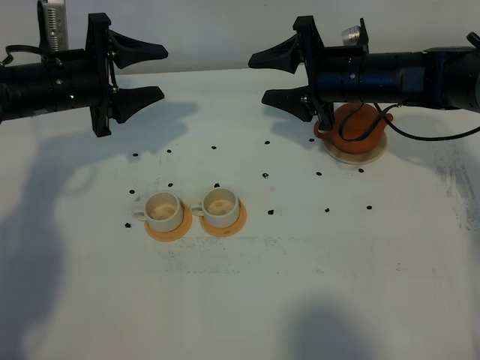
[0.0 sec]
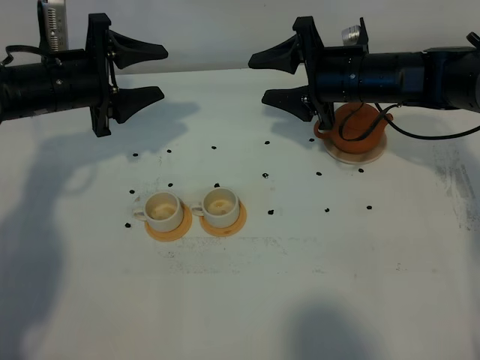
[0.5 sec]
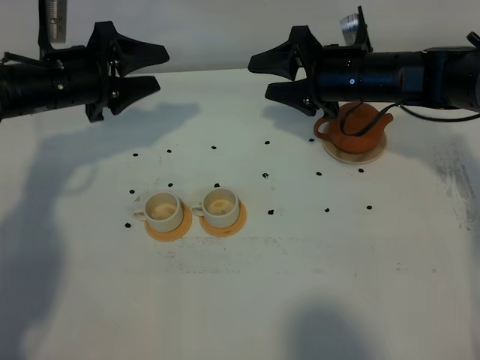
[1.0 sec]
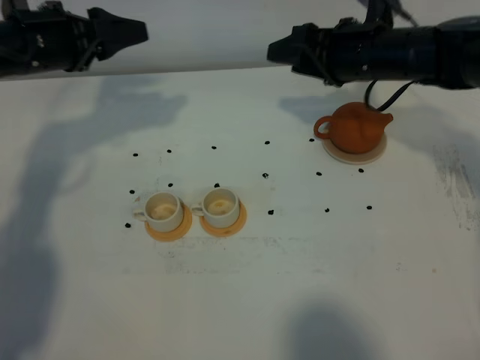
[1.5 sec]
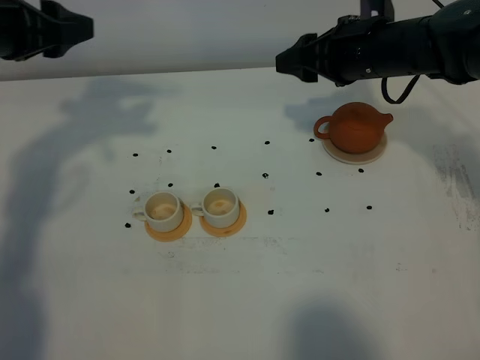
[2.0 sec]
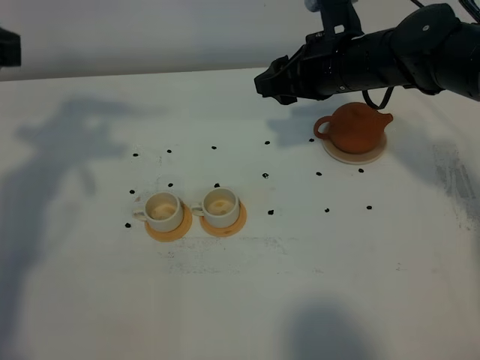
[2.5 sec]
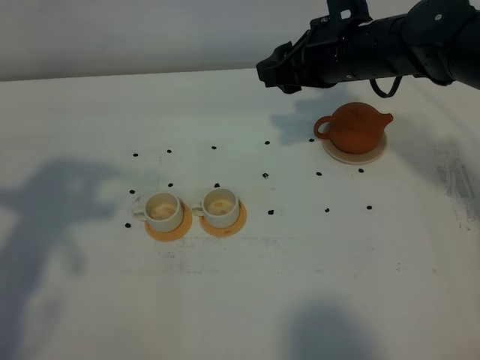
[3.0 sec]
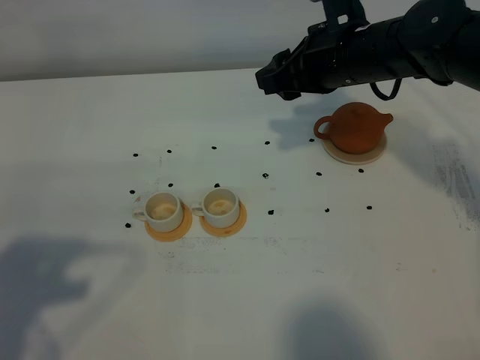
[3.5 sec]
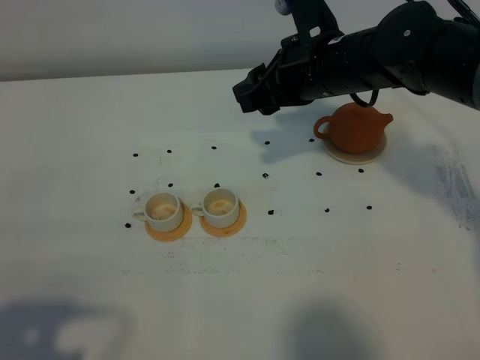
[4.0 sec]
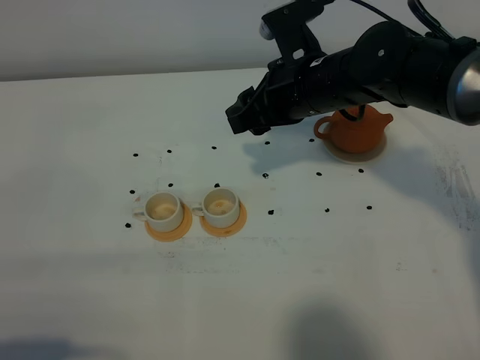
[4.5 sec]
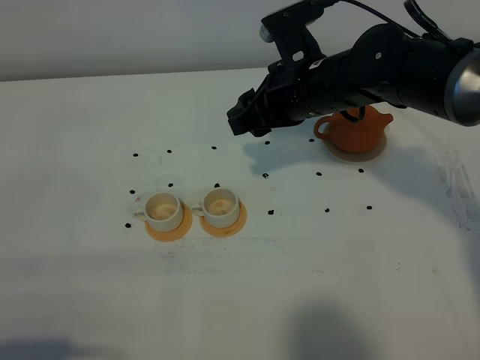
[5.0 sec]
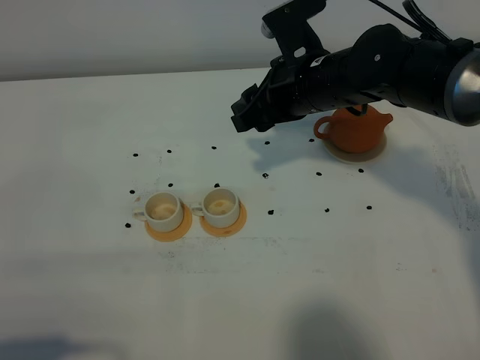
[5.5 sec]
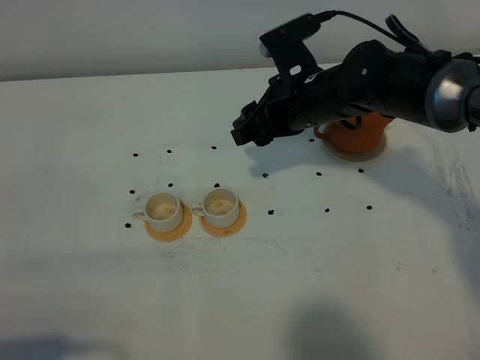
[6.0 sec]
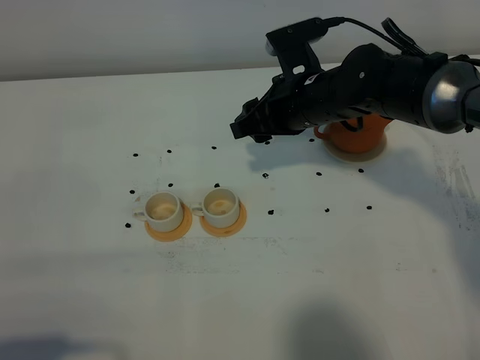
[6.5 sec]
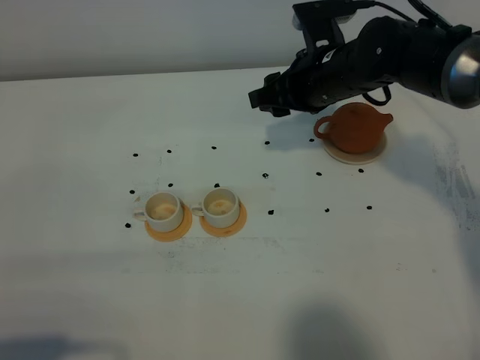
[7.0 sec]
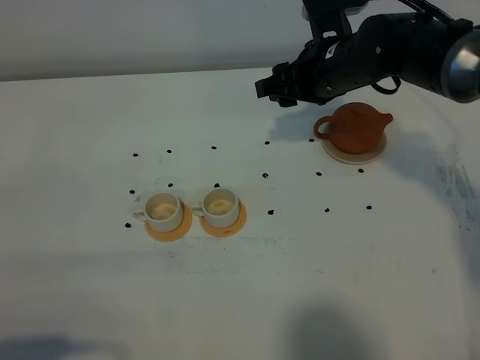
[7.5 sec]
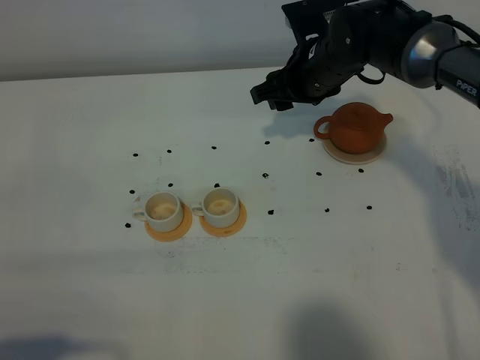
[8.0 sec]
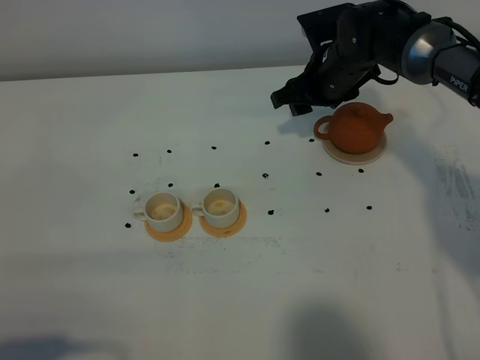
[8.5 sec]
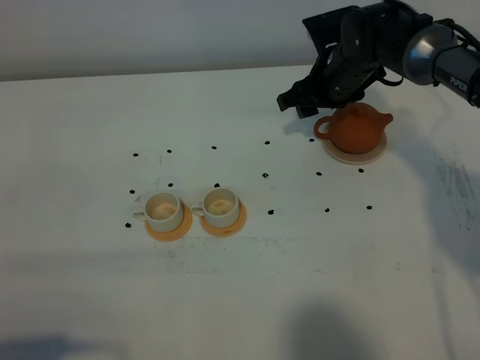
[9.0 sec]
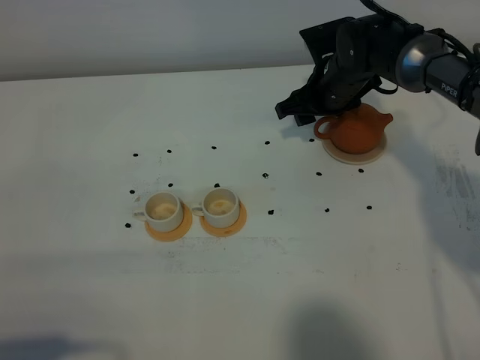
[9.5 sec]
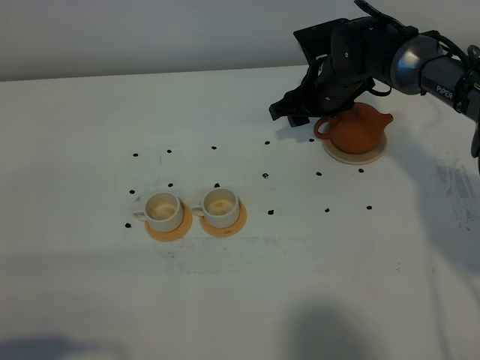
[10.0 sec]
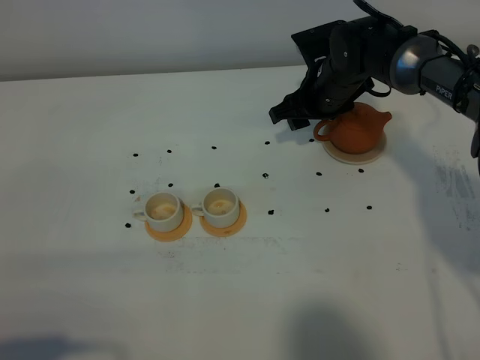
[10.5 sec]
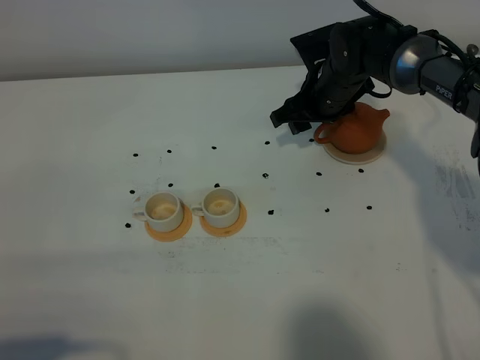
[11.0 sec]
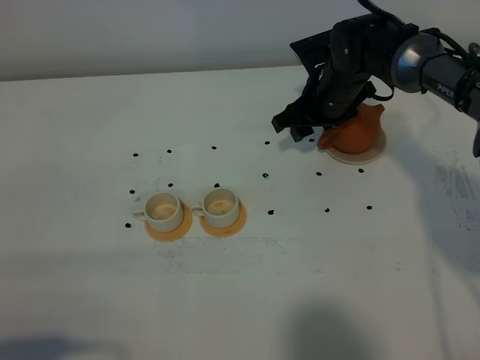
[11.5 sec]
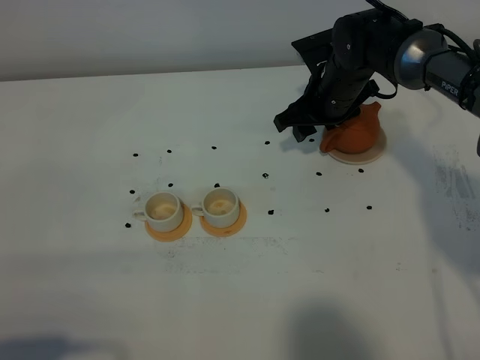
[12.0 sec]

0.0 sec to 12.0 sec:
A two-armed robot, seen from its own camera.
Task of the whole recording: grasp the brown teapot and pour the tea into the two white teacups one by one, put the brown teapot back in its original place.
0.0 sec to 2.0 sec: The left gripper goes about 15 cm upward.
2.0 sec to 4.0 sec: The left gripper moves backward, roughly 35 cm. The right gripper goes approximately 5 cm to the left.
4.0 sec to 6.0 sec: The right gripper moves downward, some 5 cm.
6.0 sec to 8.0 sec: The right gripper shifts approximately 5 cm forward.
8.0 sec to 10.0 sec: The right gripper changes place by roughly 5 cm.
10.0 sec to 12.0 sec: There are only small adjustments of the grippers.

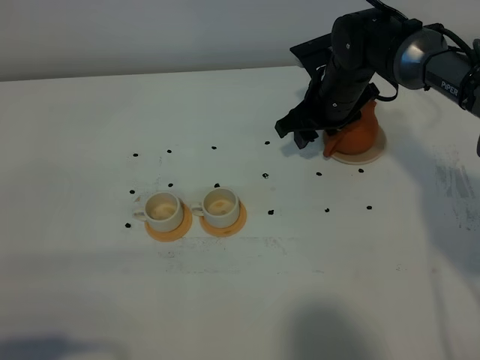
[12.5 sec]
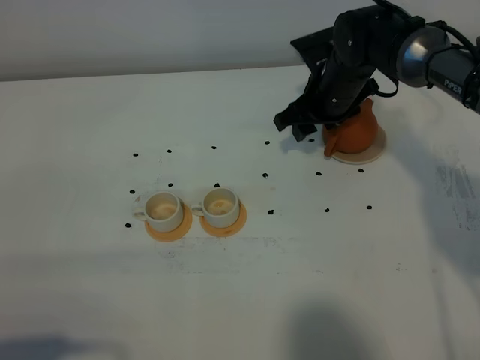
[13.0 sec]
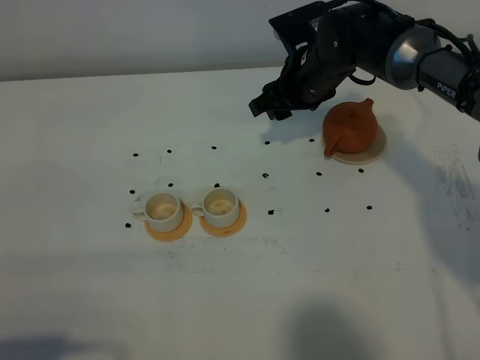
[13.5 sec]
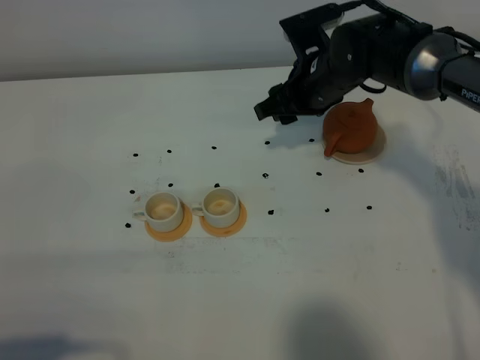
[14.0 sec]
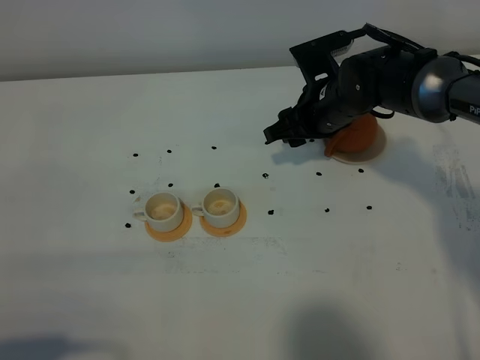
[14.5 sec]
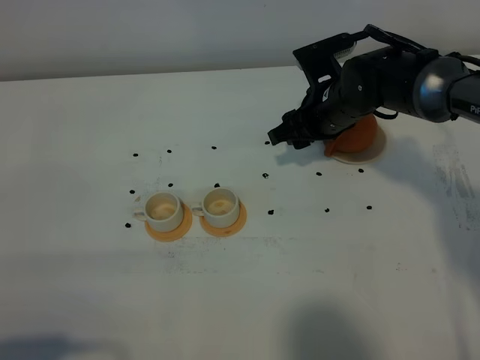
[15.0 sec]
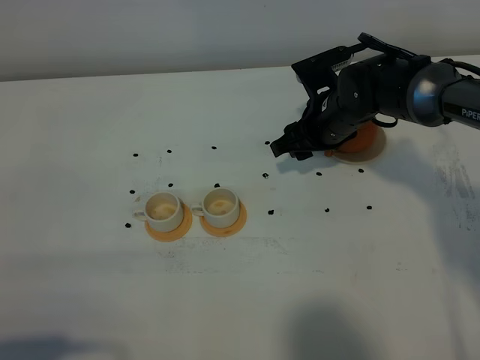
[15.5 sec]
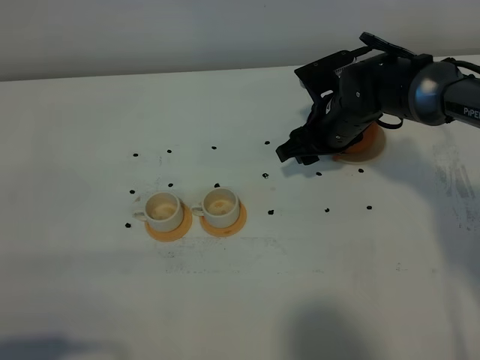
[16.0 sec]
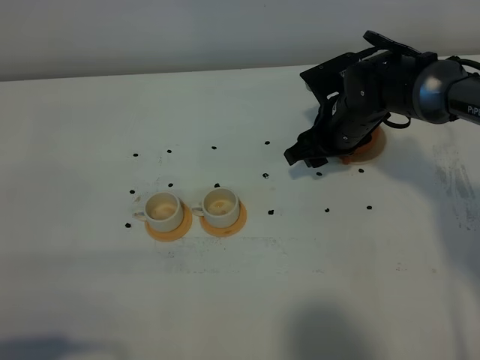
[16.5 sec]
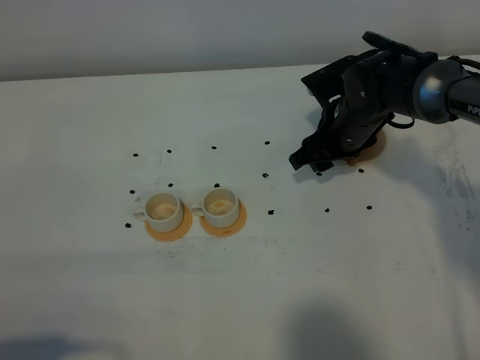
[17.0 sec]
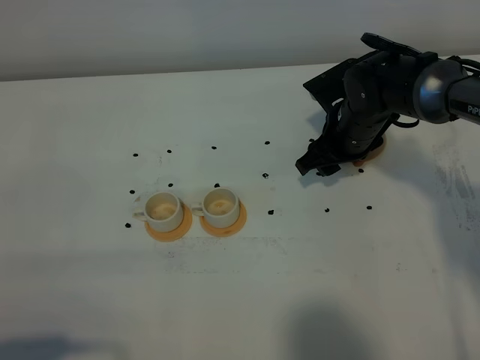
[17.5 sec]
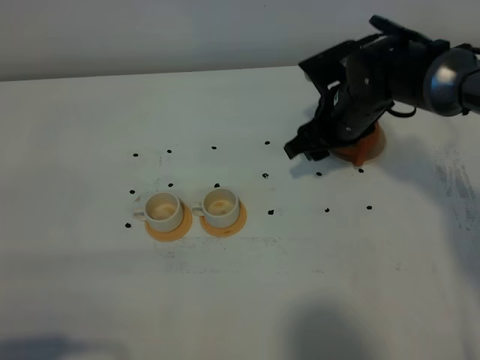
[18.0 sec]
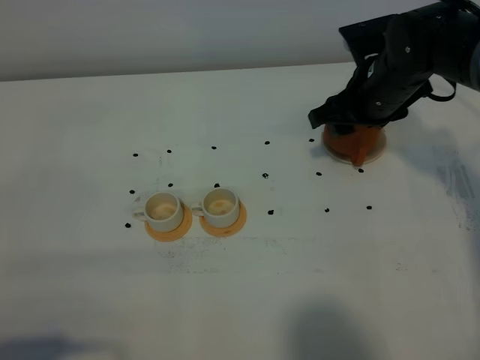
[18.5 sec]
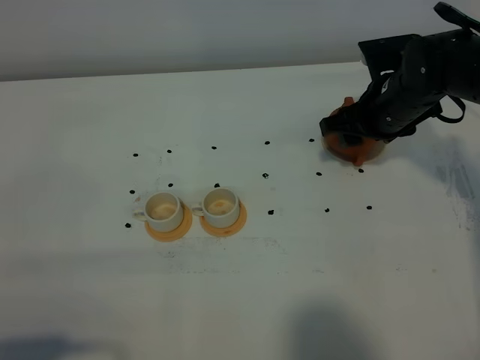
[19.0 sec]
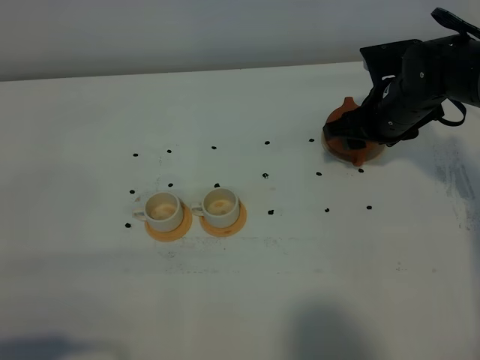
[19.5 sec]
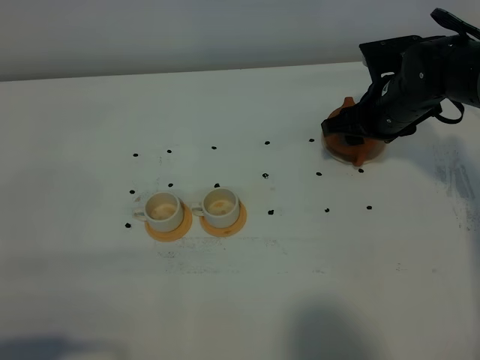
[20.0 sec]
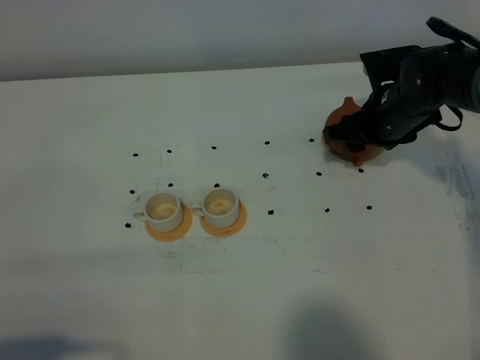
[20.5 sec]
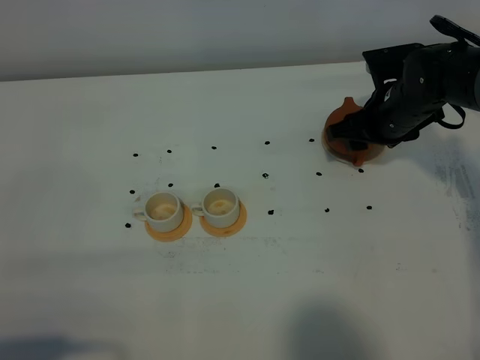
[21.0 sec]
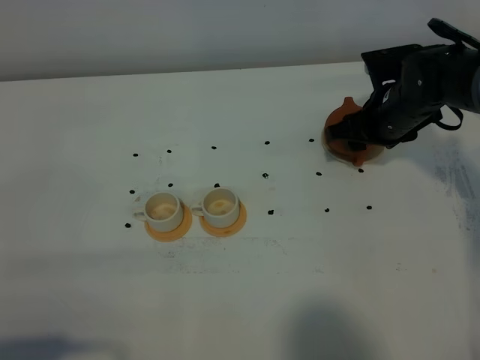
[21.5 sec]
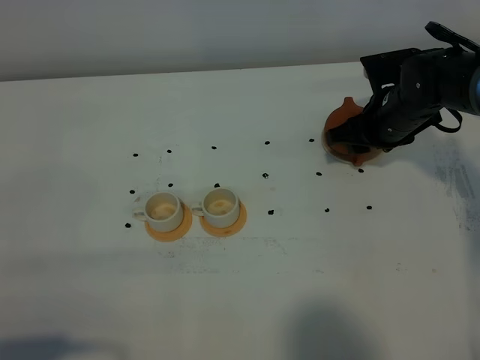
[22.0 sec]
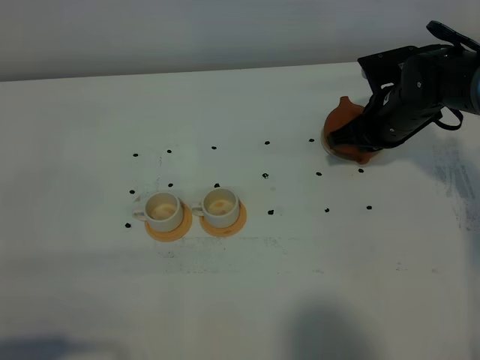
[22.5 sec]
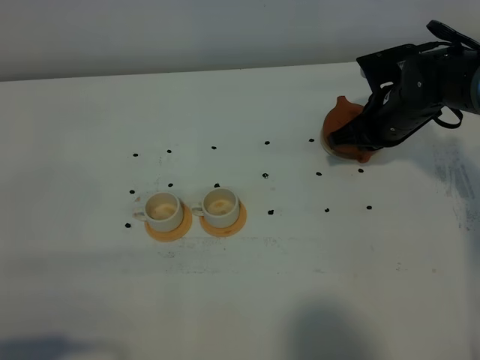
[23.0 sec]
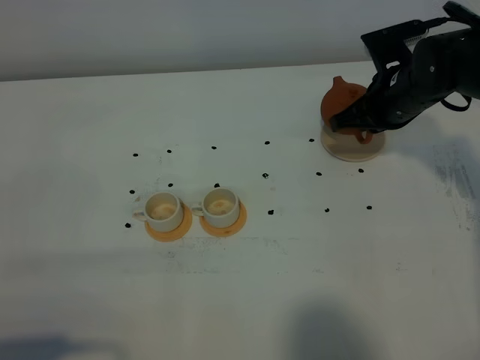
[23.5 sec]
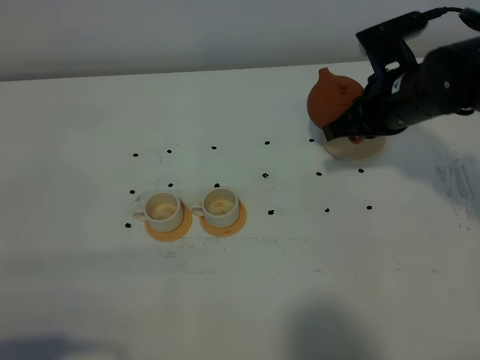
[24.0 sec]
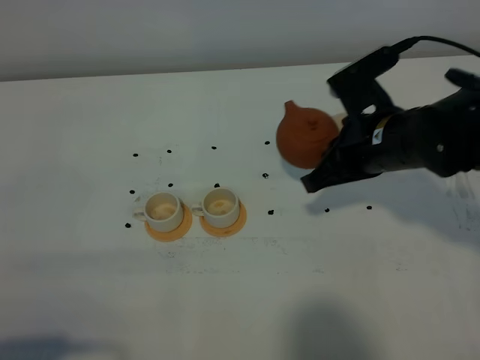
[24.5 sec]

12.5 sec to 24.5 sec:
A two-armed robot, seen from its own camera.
Task of the whole recording: grasp the brown teapot and pour the tea into the two white teacups one by one, put the brown teapot back in its original place.
Step, 12.5 sec to 23.5 sec: Pick up the teapot with the right gripper.
12.5 sec to 16.5 sec: There are only small adjustments of the grippers.
16.5 sec to 18.5 sec: The right gripper goes approximately 5 cm upward.
18.5 sec to 20.5 sec: The right gripper moves approximately 5 cm.
20.5 sec to 22.5 sec: The right gripper closes.
22.5 sec to 24.5 sec: The right gripper moves backward, upward and to the left, about 15 cm.

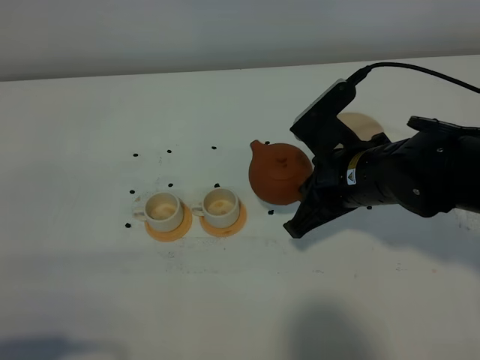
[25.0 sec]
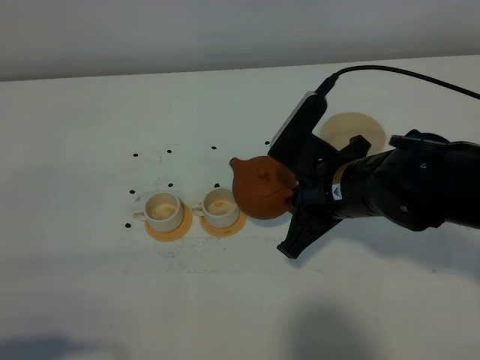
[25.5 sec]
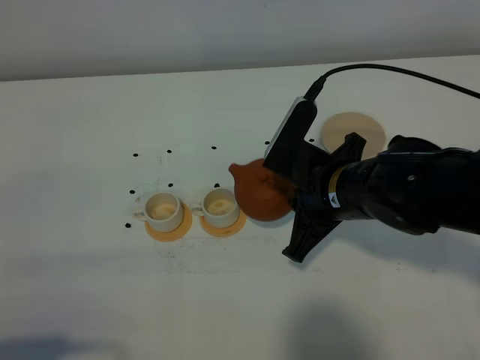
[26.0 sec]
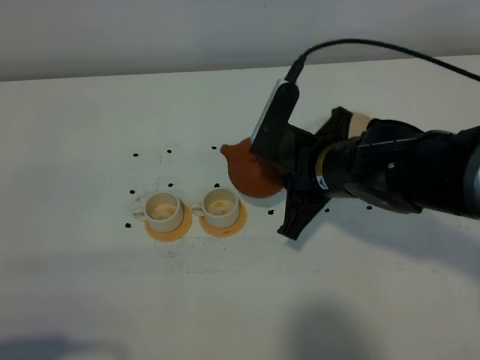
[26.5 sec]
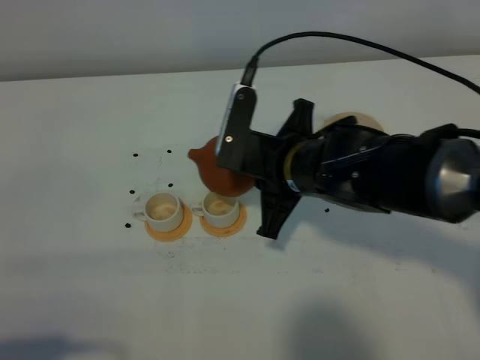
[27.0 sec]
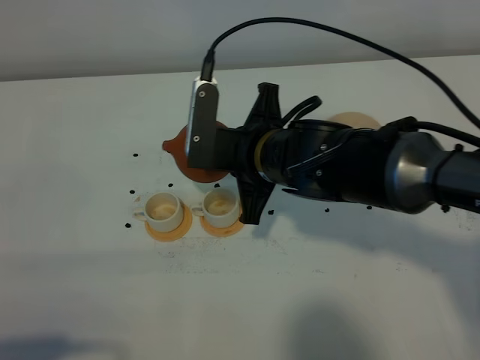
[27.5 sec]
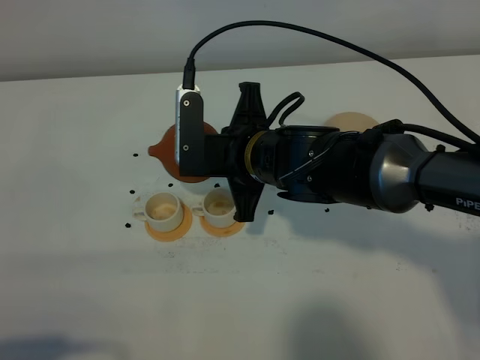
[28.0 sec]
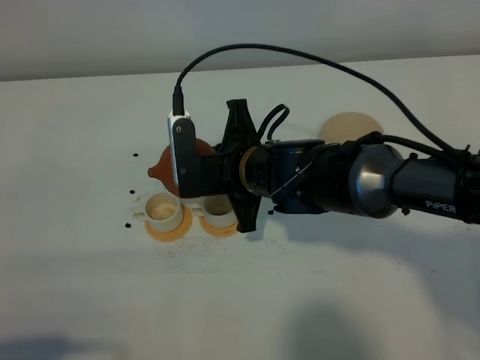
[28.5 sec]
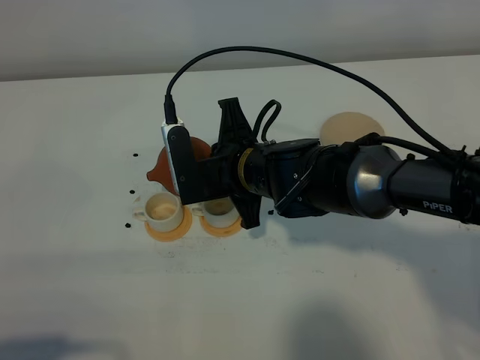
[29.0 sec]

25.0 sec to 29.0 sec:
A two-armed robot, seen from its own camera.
Task of the whole recording: grasp the brown teapot and pour the tea into the two white teacups one by one, put the brown teapot back in its original place.
25.0 sec to 27.0 sec: The right gripper travels to the left by some 5 cm.
27.0 sec to 29.0 sec: The right gripper shifts by about 5 cm.
